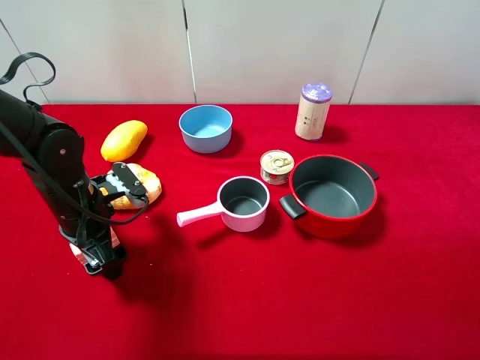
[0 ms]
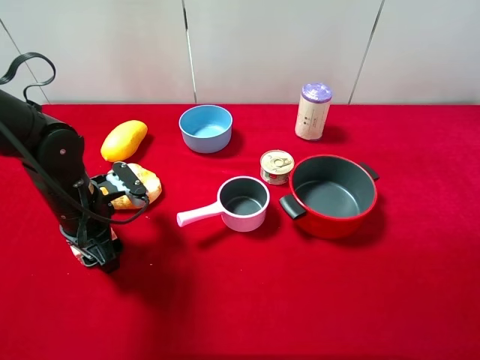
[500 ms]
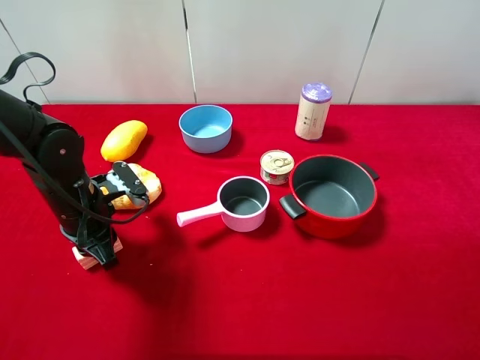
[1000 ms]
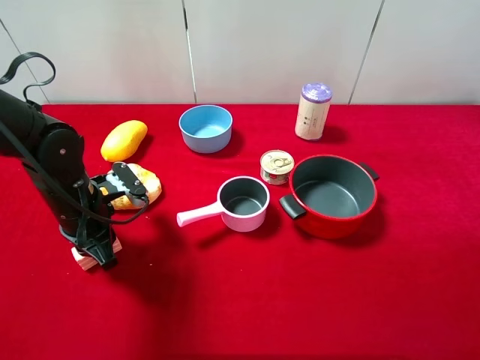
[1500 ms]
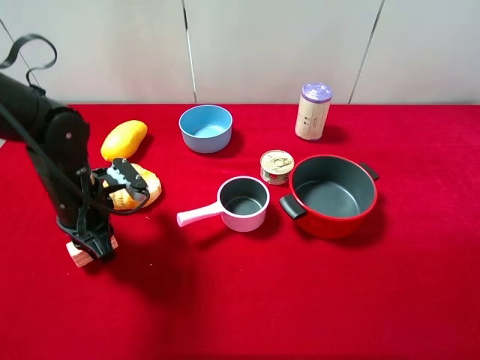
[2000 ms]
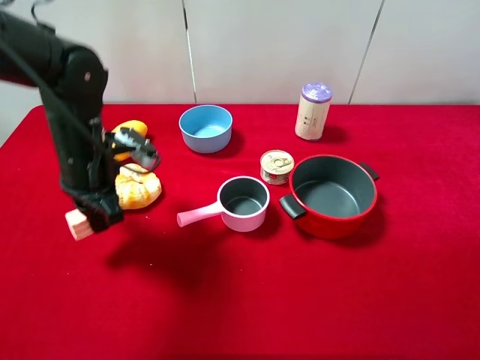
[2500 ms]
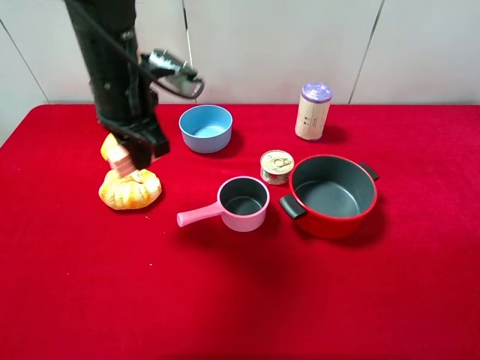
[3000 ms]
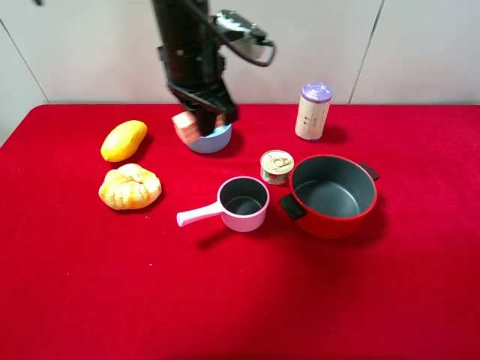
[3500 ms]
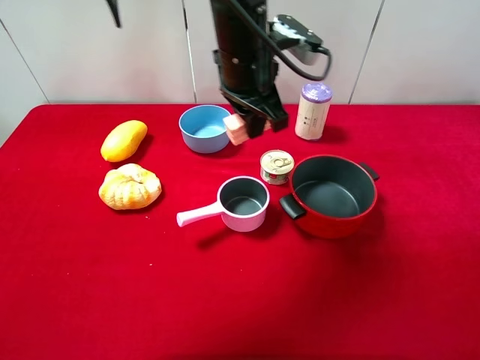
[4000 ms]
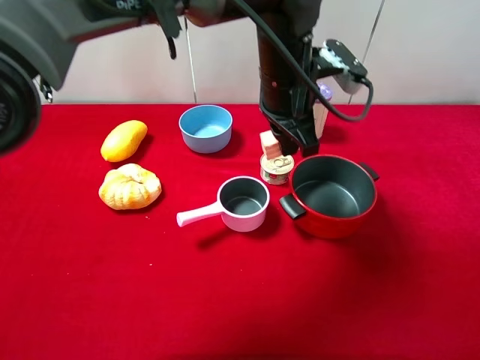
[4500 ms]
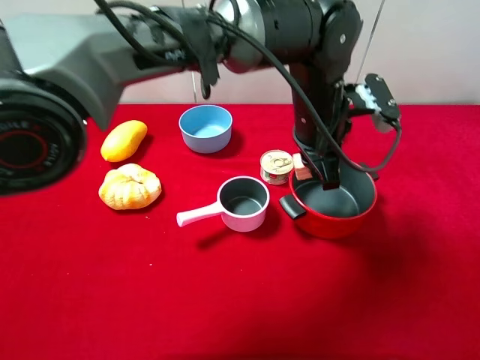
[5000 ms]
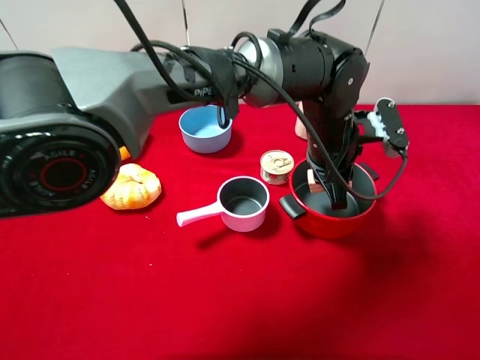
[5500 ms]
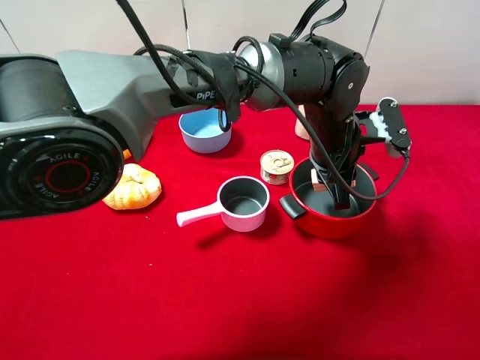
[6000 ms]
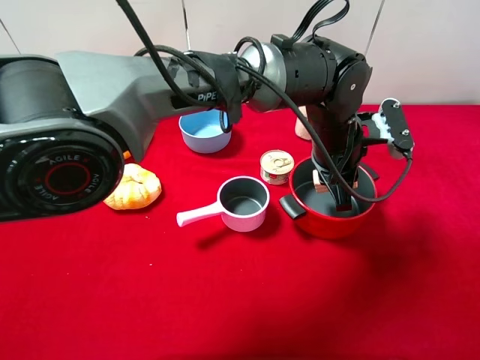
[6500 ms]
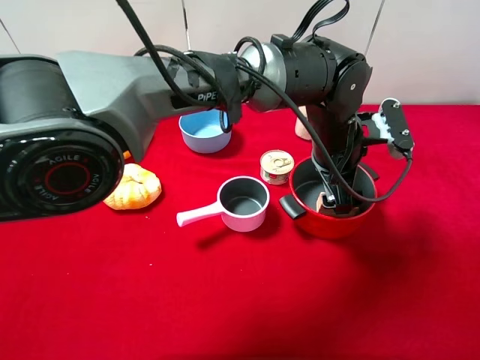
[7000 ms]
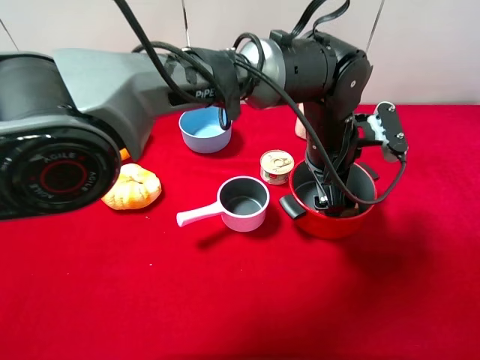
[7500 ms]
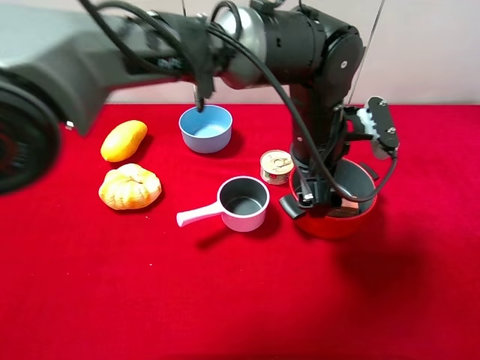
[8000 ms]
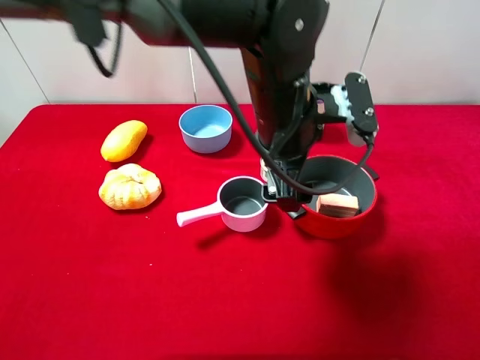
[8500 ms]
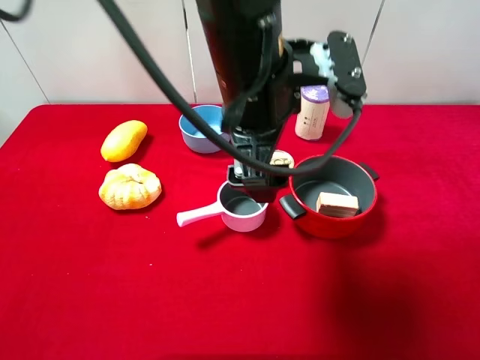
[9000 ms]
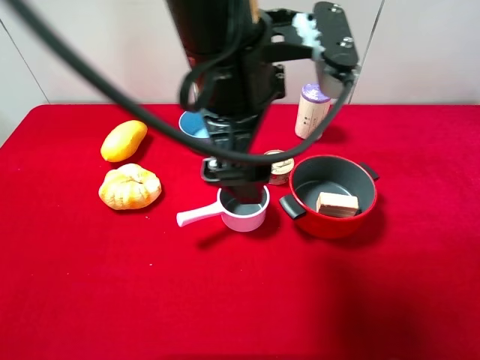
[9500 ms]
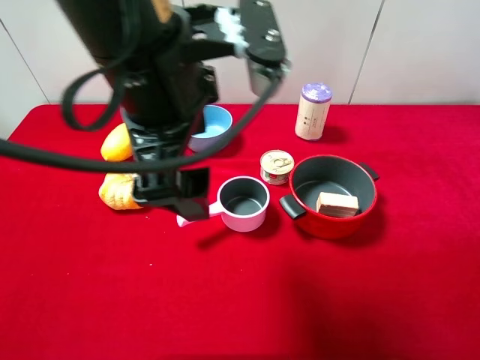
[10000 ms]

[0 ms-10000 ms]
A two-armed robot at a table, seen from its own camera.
Task of the whole recording: pick up an item with a gripper and place it in a random container on the desktop.
0 ms to 2000 ms: The left gripper closes up.
2000 ms to 4000 ms: The left gripper travels to the right and upward by approximately 25 cm.
4000 ms to 6000 ms: The left gripper goes roughly 15 cm to the right and downward.
6000 ms to 8000 ms: The left gripper opens.
8000 ms to 10000 ms: The left gripper shifts some 25 cm to the left, upward and backward.

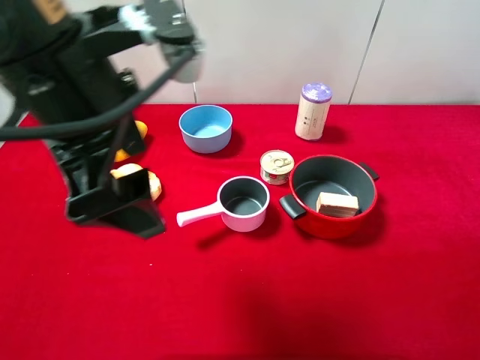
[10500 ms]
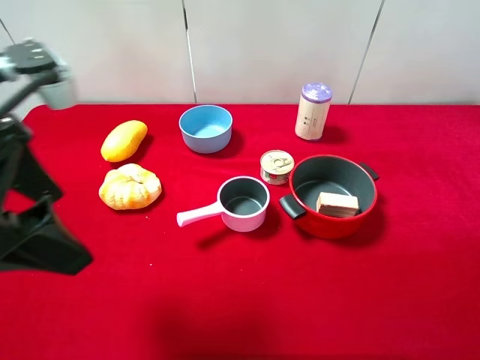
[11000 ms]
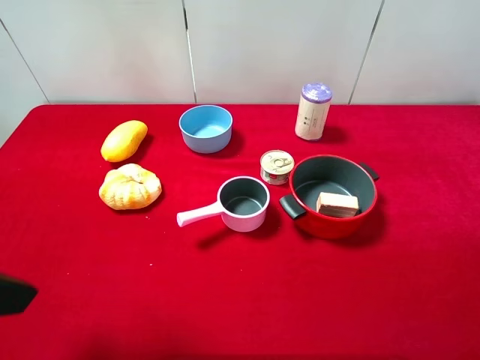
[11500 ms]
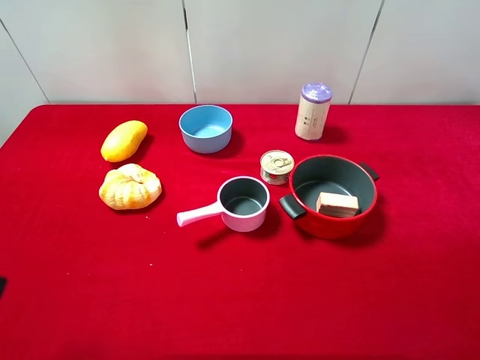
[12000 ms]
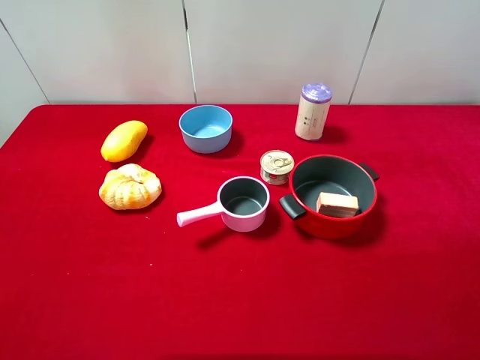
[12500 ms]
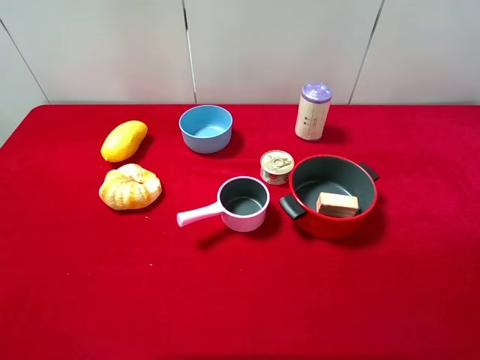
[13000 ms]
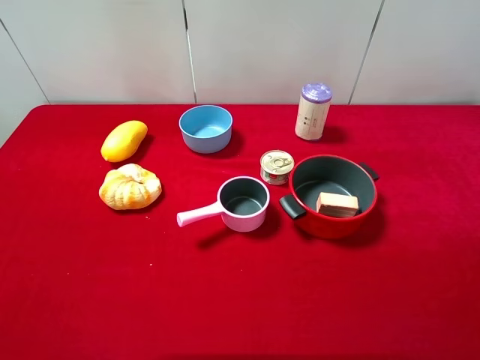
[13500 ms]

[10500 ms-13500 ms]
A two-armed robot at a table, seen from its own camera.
Task of the whole recording: pick up an item with a gripper and place it in a random container on the desktop.
10500 ms to 12000 ms: The left gripper heads to the left and backward, covering roughly 20 cm.

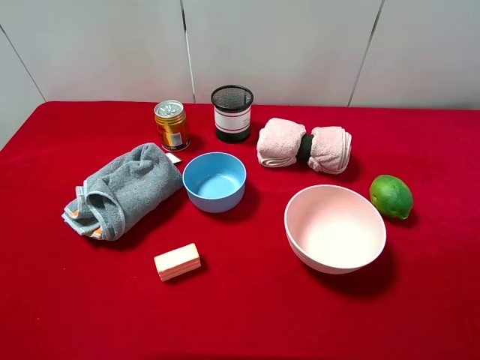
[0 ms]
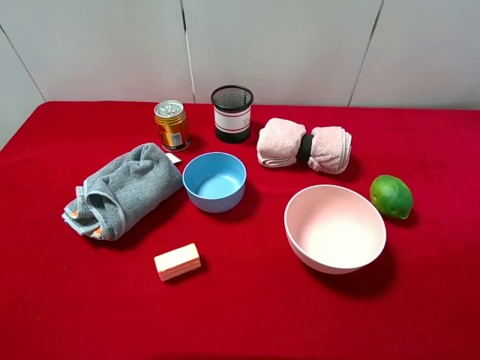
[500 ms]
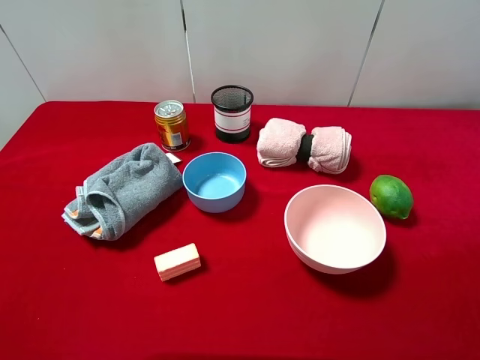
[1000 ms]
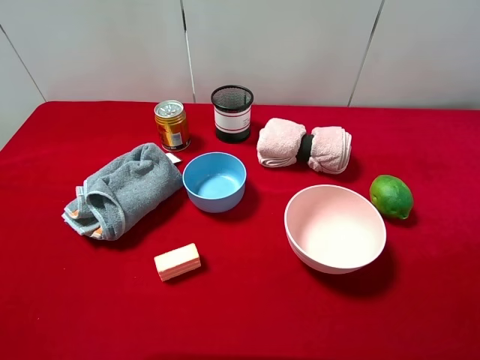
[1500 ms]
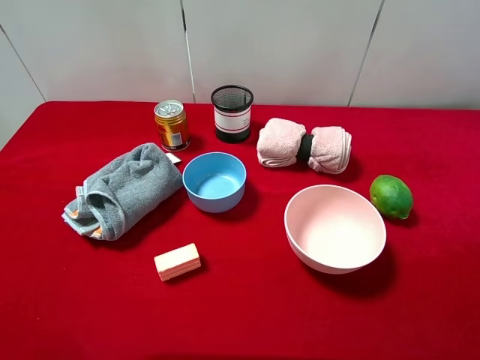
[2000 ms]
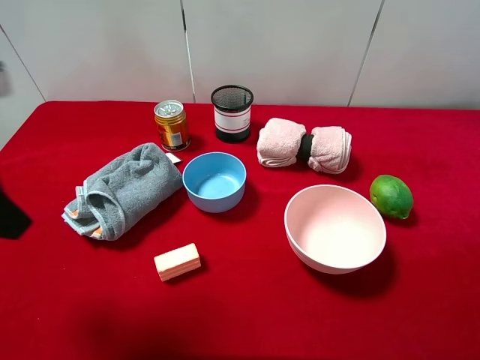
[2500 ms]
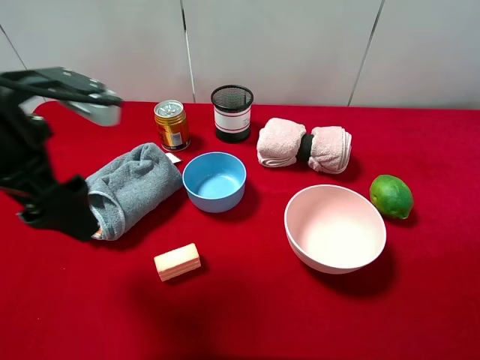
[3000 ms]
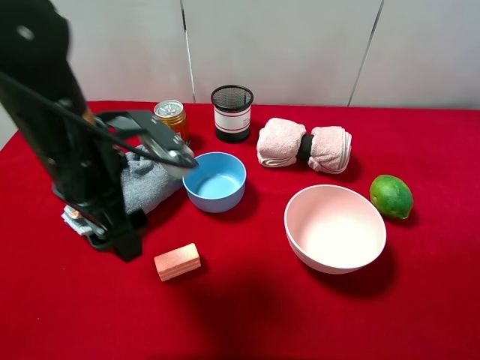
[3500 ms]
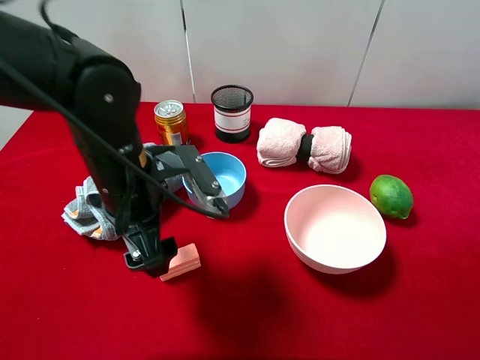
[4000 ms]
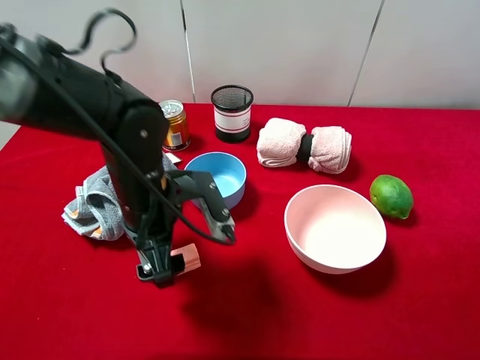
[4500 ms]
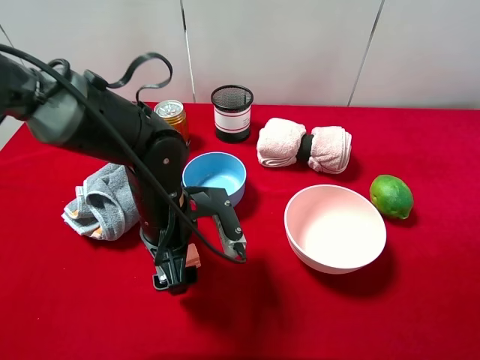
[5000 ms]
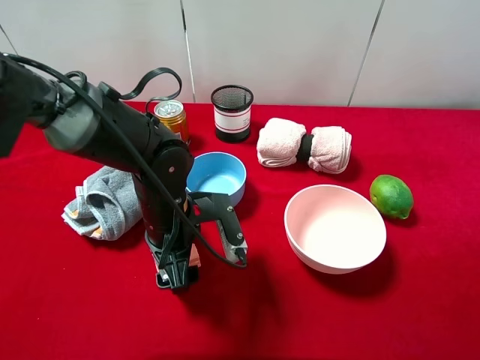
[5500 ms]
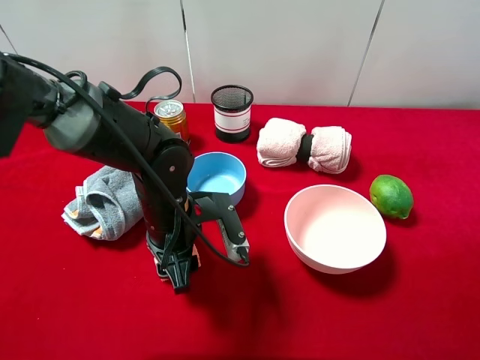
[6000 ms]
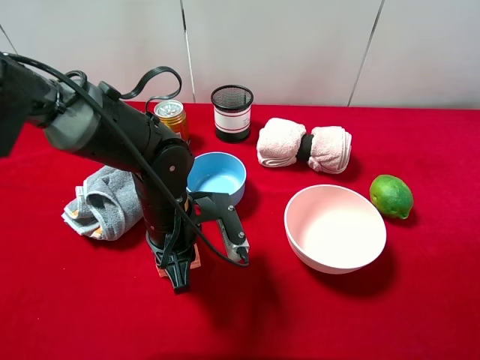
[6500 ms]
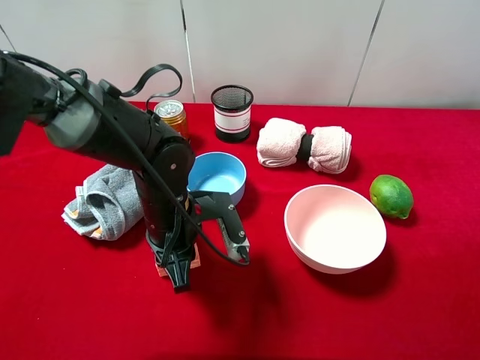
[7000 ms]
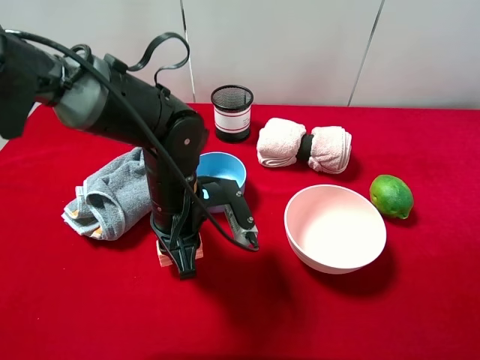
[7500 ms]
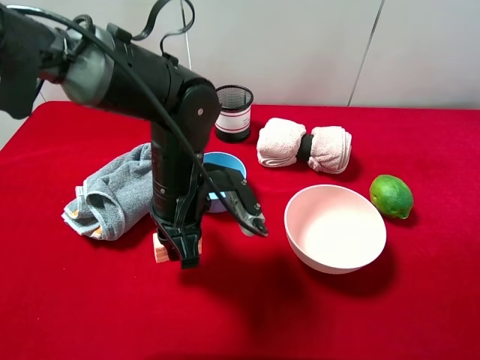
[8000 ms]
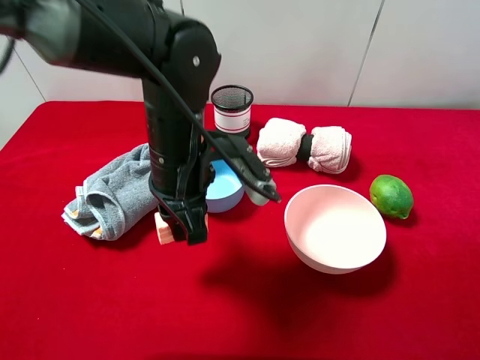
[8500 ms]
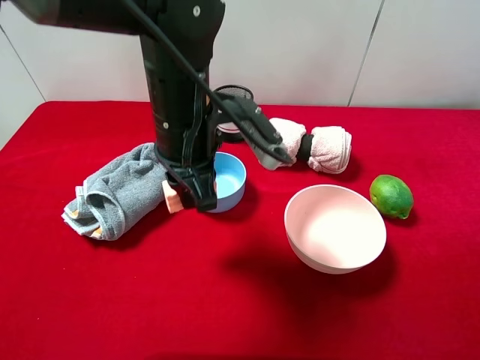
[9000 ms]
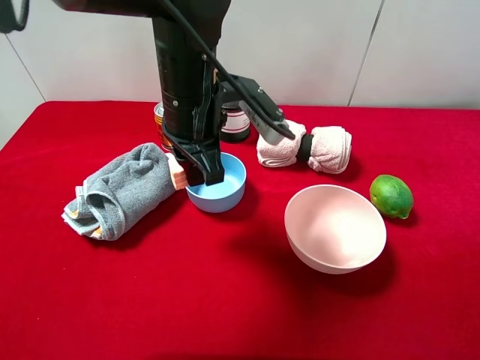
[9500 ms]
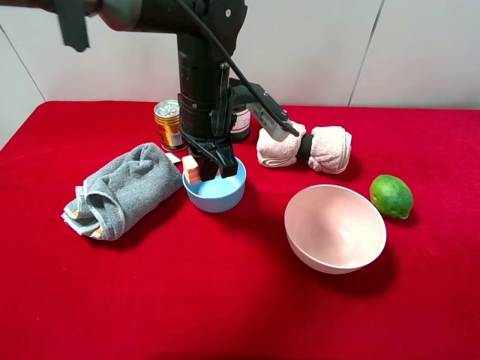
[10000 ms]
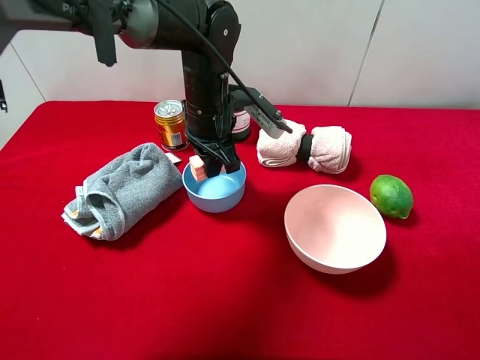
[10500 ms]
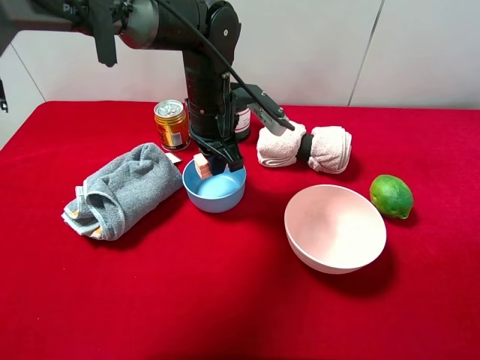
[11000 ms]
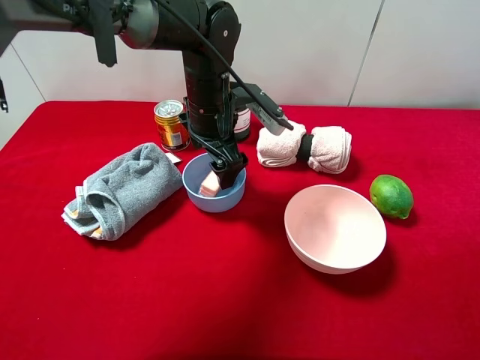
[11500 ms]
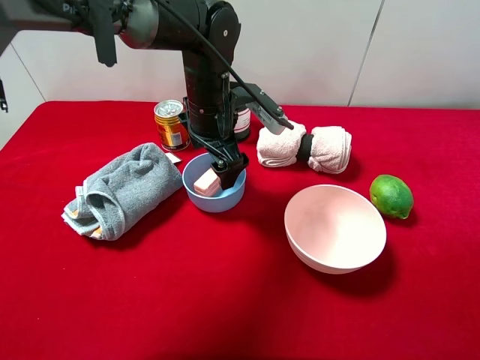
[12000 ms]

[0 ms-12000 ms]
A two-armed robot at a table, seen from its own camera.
Task of the whole recording: pick up an item with a gripper and place it in a random container on the desktop.
2000 ms to 4000 ms: The left gripper is displaced to the right, downward and forward by approximately 30 cm.
4000 ms to 6000 ms: The left gripper shifts about 10 cm downward, and closes its fingers.
6000 ms to 8000 ms: The left gripper shifts by approximately 5 cm, and closes its fingers.
8000 ms to 10000 ms: The left gripper shifts approximately 10 cm forward and upward.
10000 ms to 12000 ms: The left gripper opens up.
